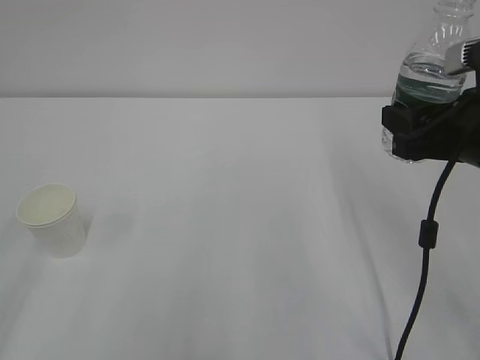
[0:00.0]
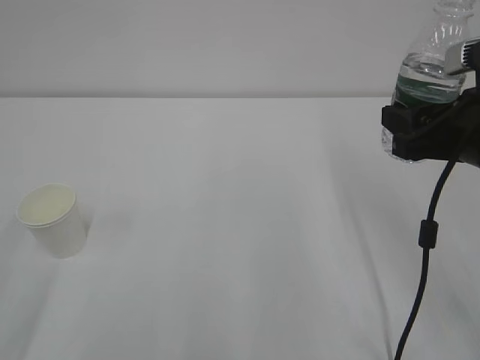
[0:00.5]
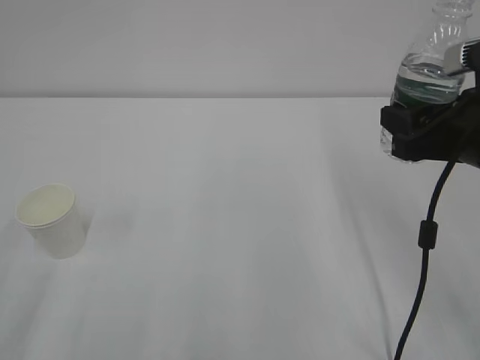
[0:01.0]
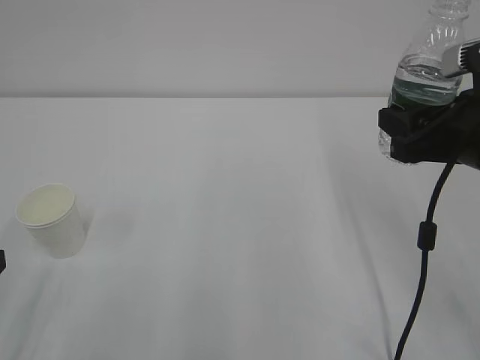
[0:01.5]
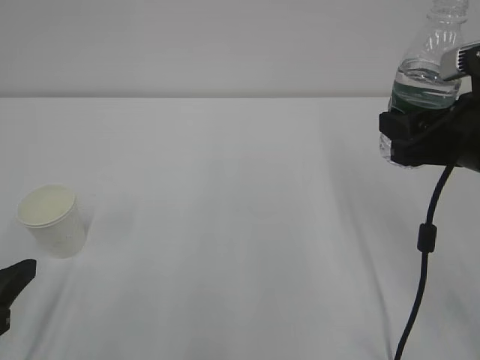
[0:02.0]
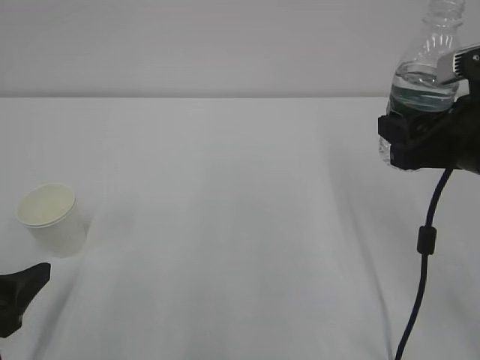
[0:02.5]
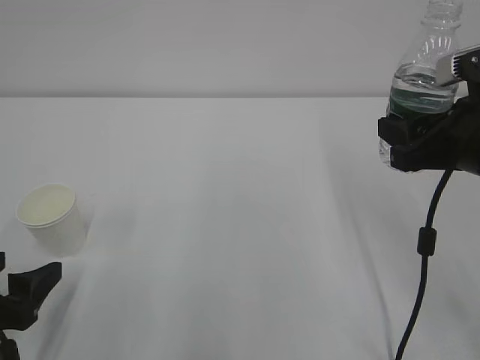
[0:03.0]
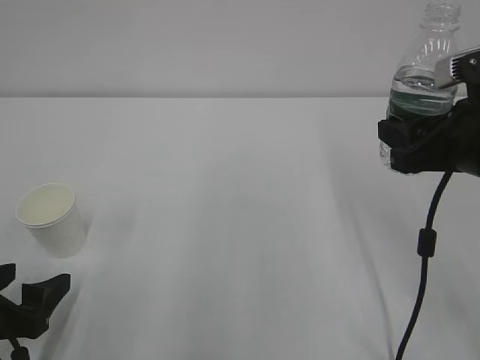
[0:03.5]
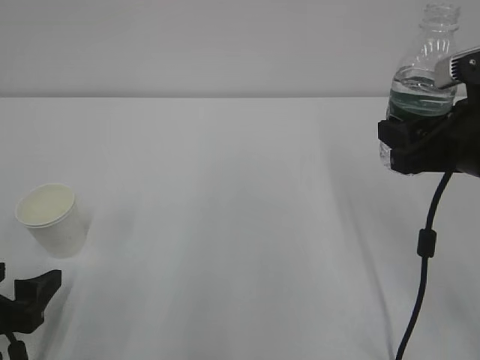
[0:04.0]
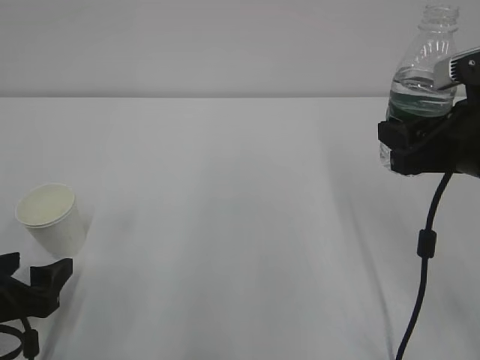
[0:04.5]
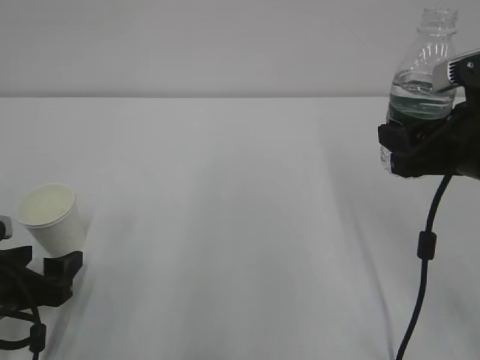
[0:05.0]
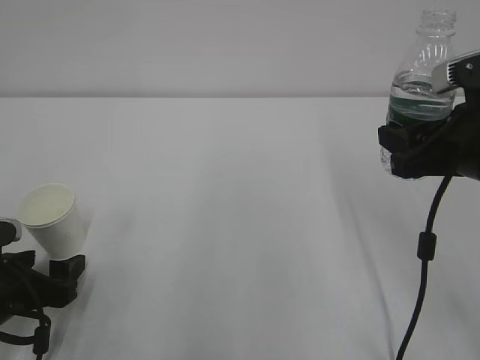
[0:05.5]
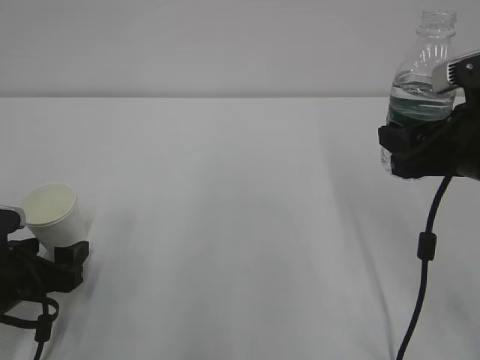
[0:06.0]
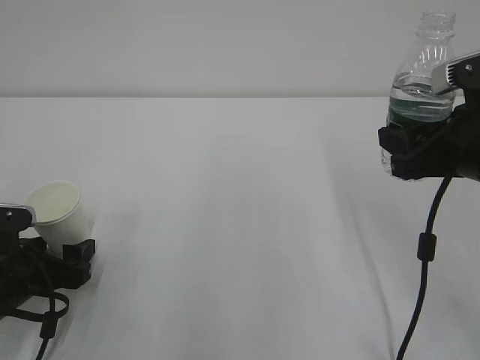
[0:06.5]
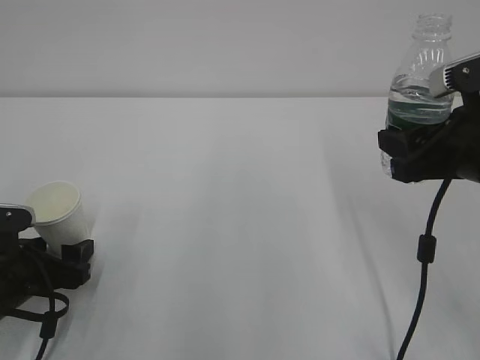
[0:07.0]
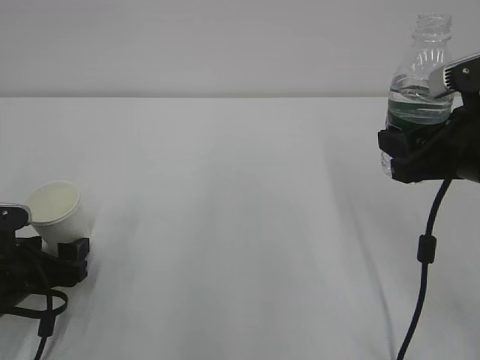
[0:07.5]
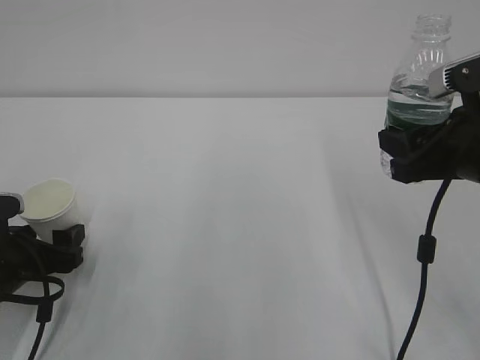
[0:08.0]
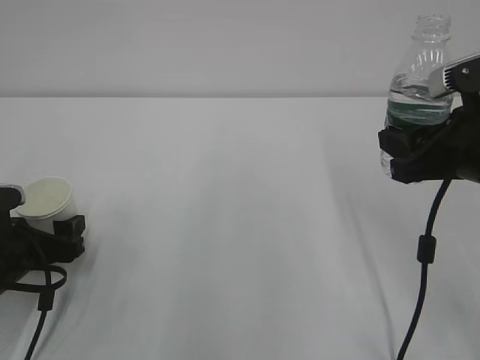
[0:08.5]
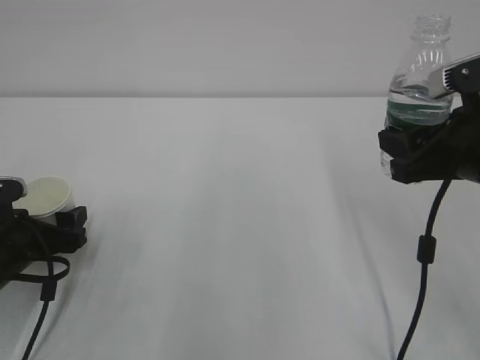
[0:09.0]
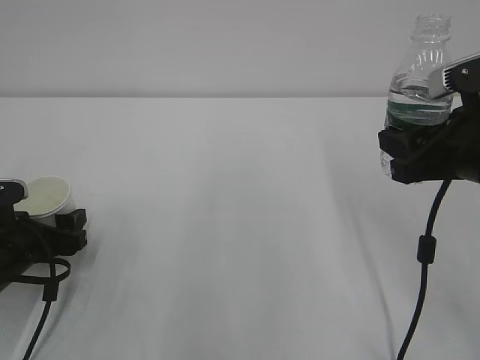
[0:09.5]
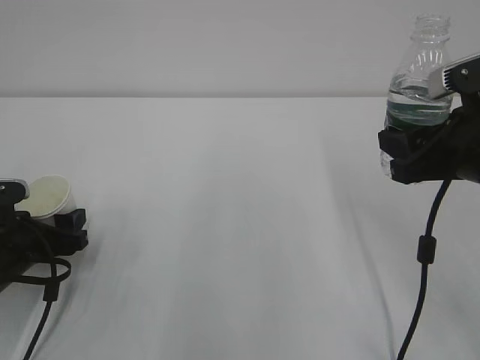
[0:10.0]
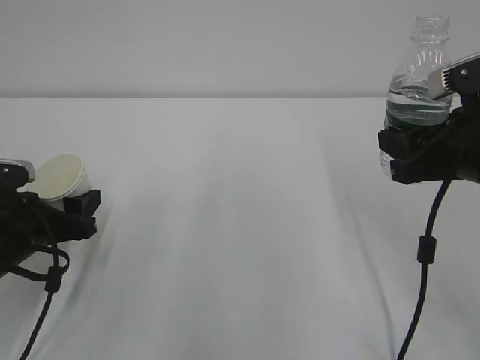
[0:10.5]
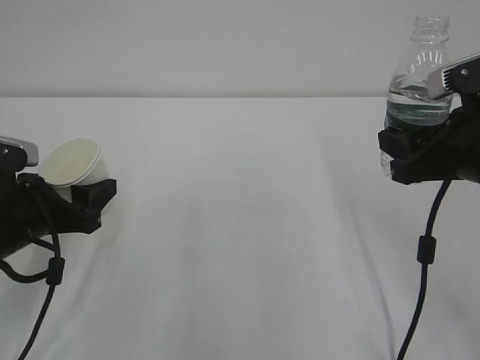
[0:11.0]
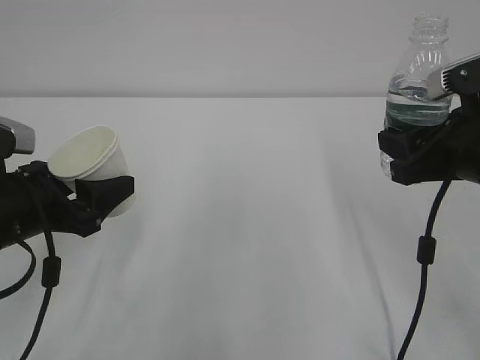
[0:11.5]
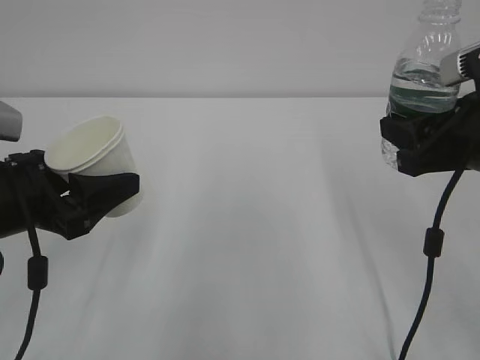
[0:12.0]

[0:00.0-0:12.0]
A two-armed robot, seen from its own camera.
0:00.0 to 0:02.0: The left gripper goes about 10 cm downward.
0:02.0 to 0:04.0: The left gripper heads downward, covering some 5 cm, and opens.
0:04.0 to 0:06.0: The left gripper travels forward by approximately 5 cm.
0:06.0 to 0:10.0: The grippers move only a little.
0:10.0 to 0:12.0: The left gripper shifts roughly 15 cm upward and to the right.

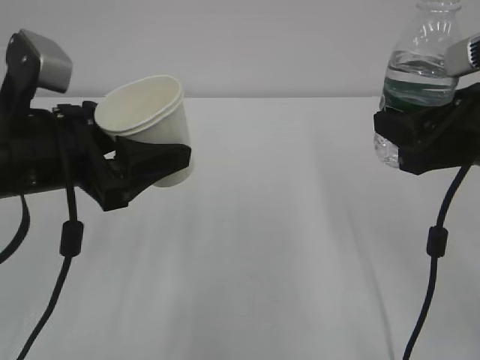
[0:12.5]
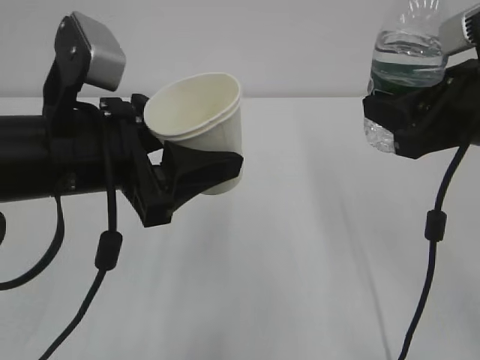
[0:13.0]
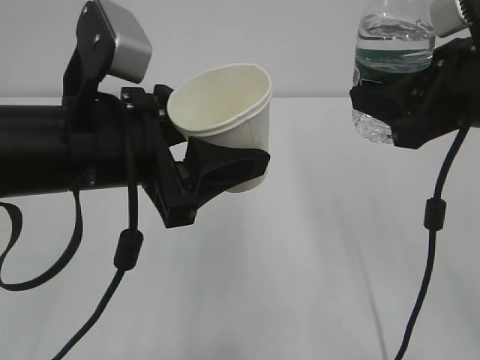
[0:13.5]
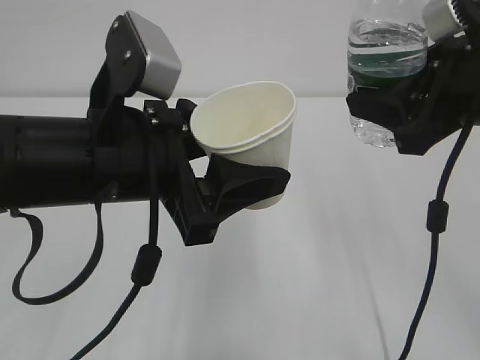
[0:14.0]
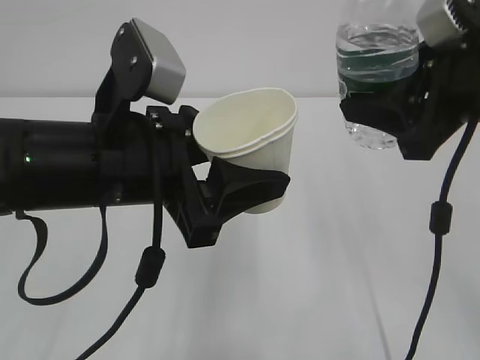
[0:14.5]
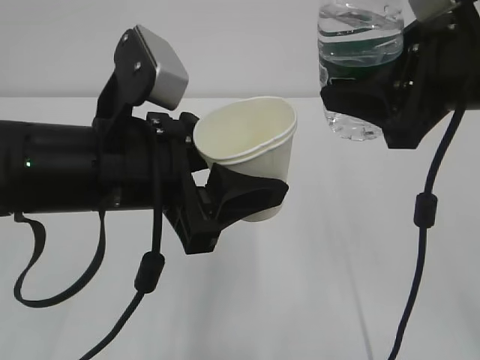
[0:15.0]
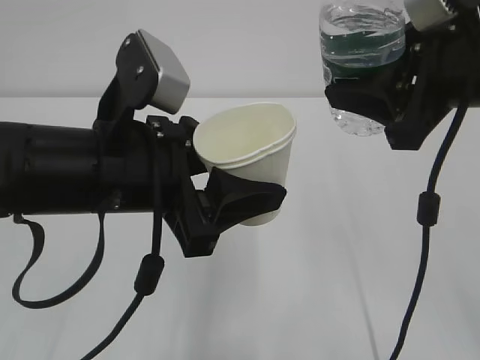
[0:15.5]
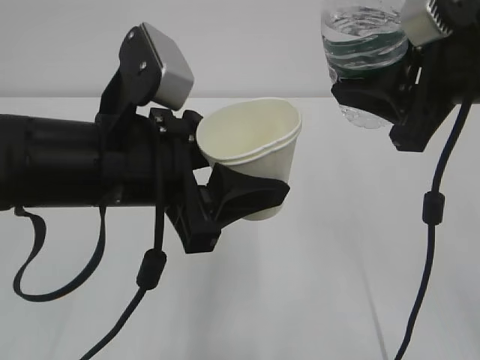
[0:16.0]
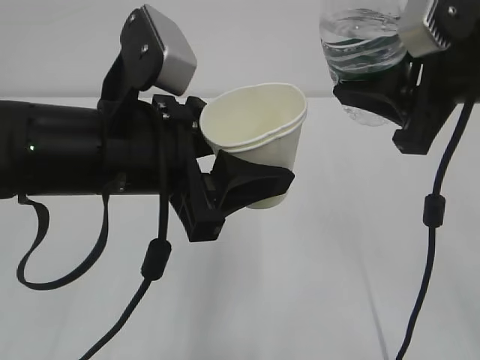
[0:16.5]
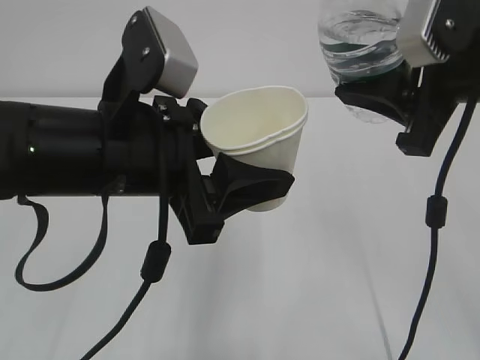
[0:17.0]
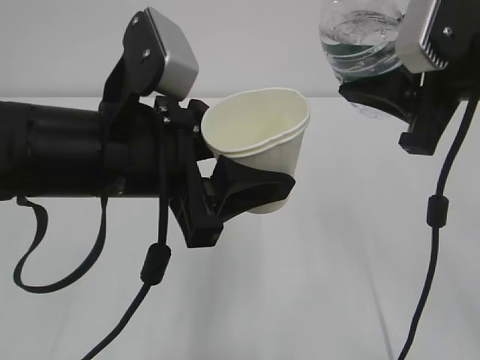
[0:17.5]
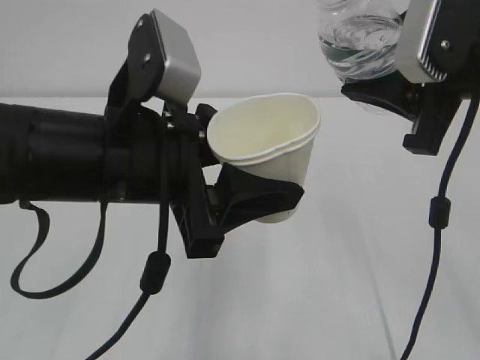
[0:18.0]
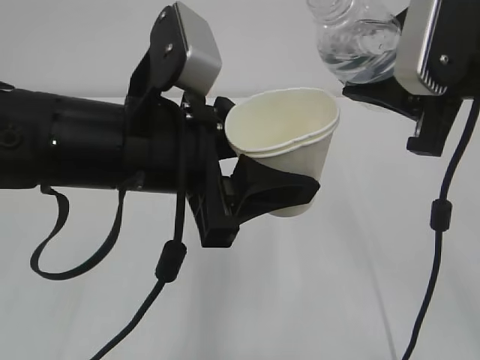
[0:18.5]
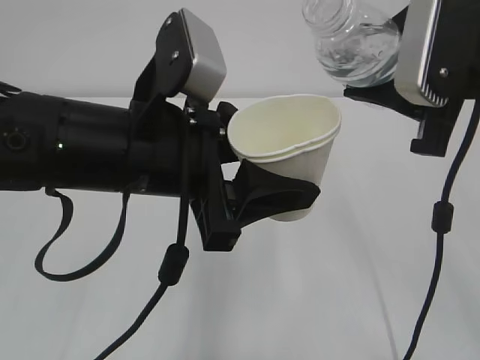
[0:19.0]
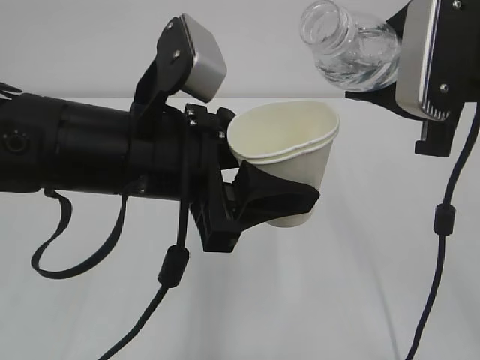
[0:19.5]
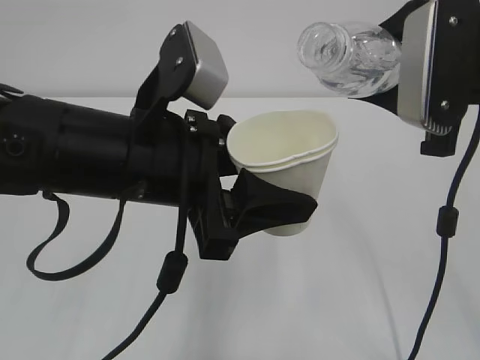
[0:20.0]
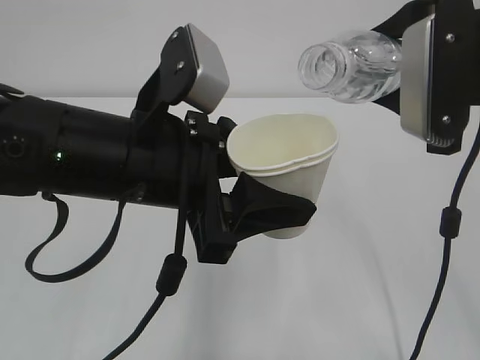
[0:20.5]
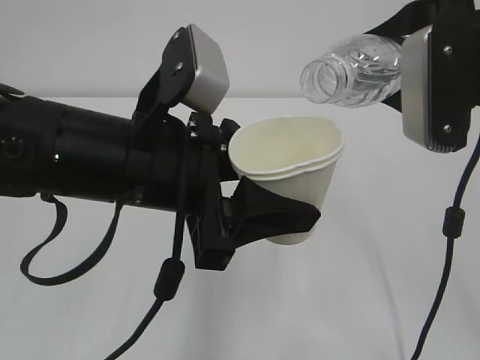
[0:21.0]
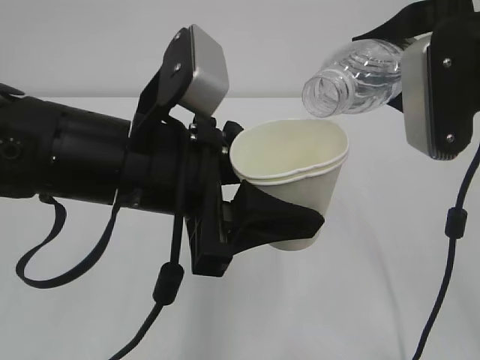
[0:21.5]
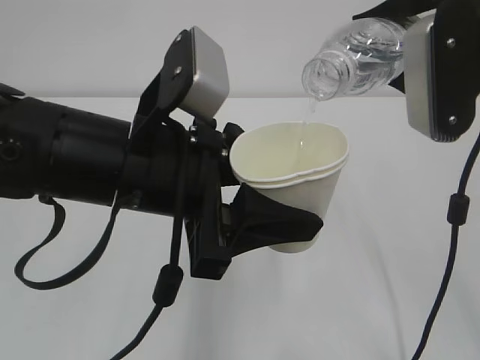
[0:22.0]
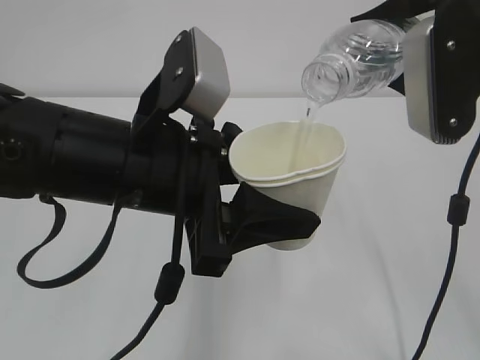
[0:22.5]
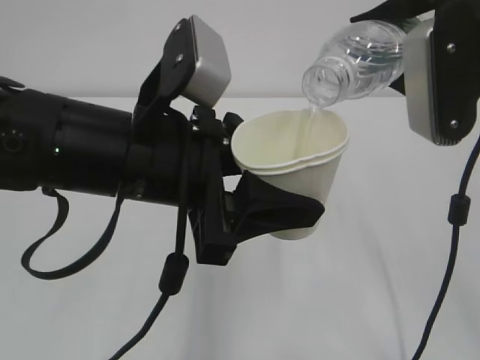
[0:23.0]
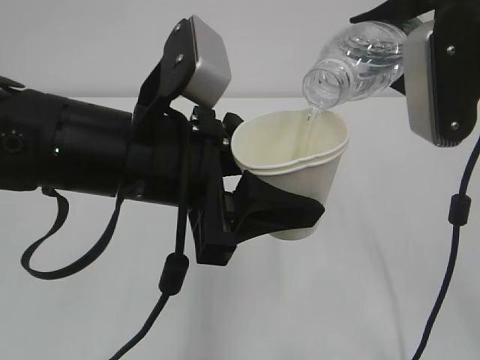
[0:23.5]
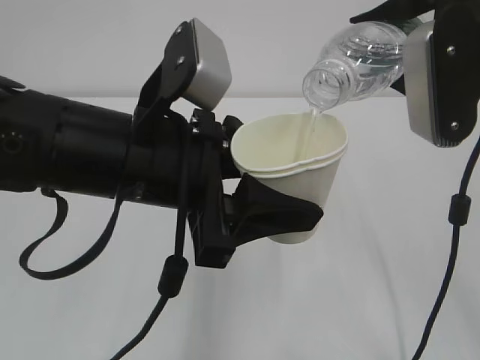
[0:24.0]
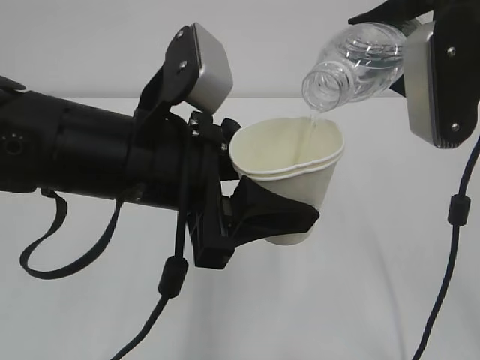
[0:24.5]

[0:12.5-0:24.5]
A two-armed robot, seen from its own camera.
0:12.5 to 0:14.5: The right gripper moves upward, roughly 5 cm. The left gripper moves to the right, about 10 cm.
0:14.5 to 0:16.5: The grippers move only a little.
0:20.5 to 0:22.5: The grippers make only small movements.
0:22.5 to 0:24.5: The two grippers keep their place.

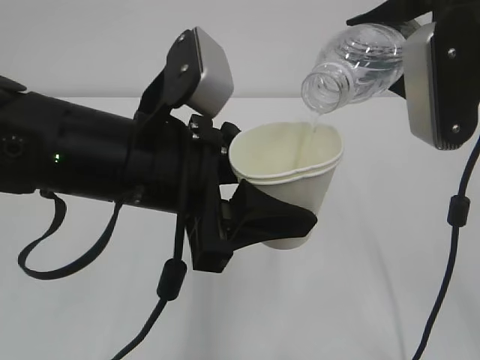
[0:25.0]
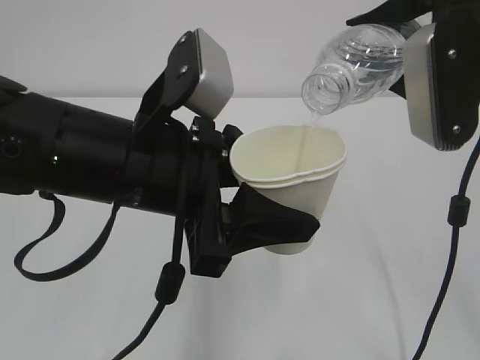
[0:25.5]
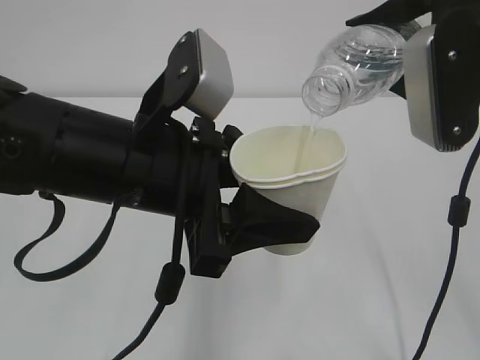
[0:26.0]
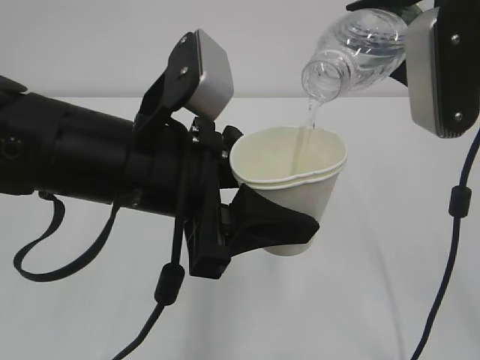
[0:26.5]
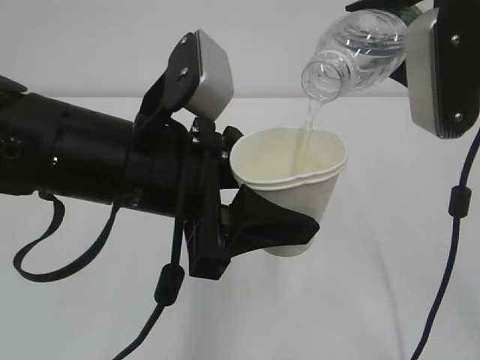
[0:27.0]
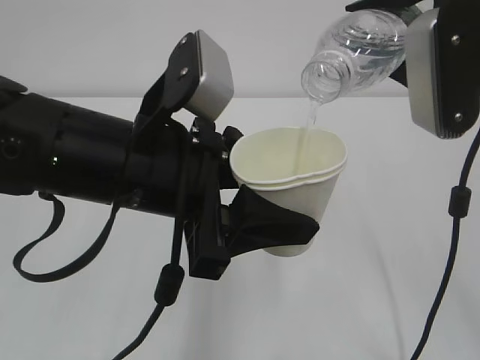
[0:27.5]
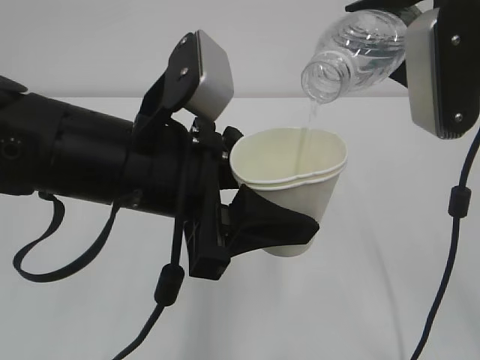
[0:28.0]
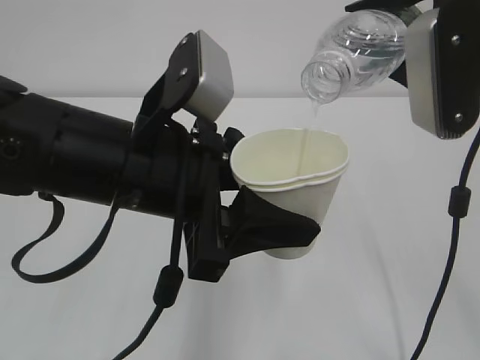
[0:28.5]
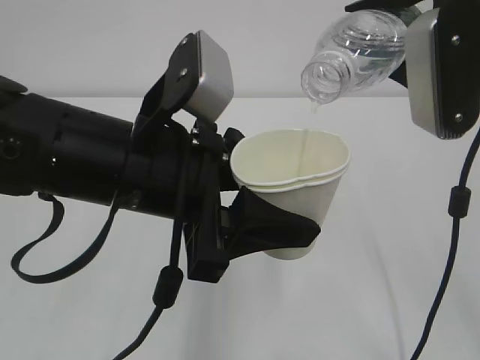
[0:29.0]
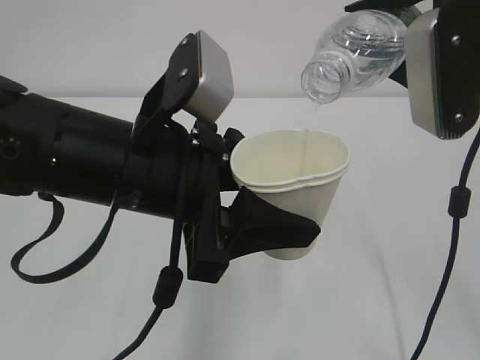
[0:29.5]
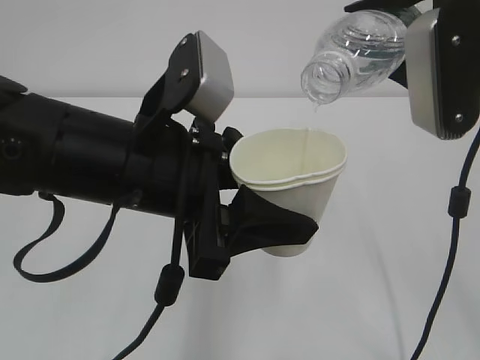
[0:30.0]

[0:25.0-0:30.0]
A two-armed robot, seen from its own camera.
0:25.0 to 0:30.0: Neither gripper changes place.
